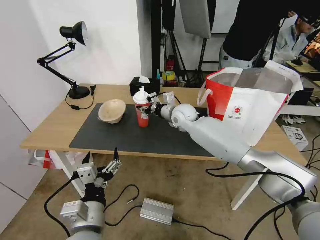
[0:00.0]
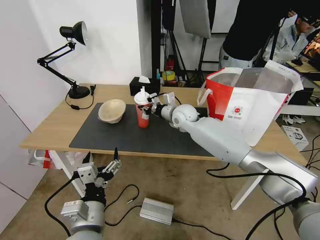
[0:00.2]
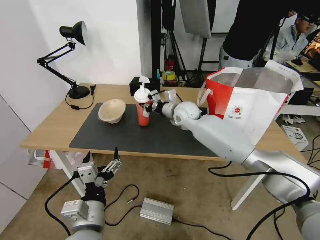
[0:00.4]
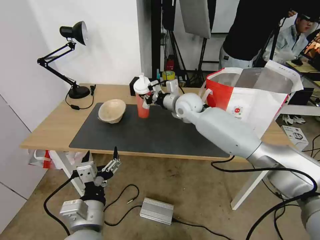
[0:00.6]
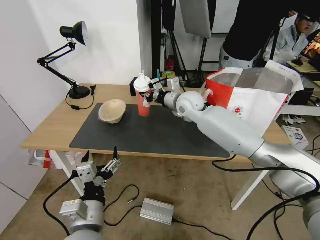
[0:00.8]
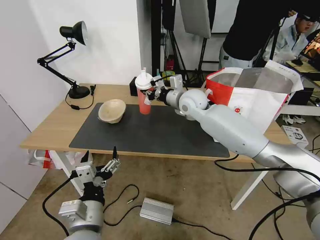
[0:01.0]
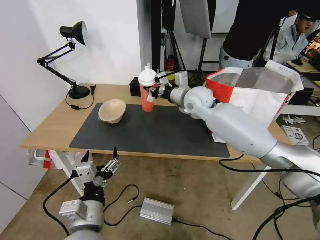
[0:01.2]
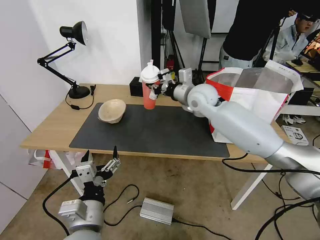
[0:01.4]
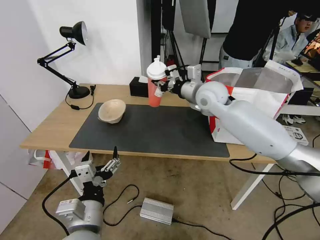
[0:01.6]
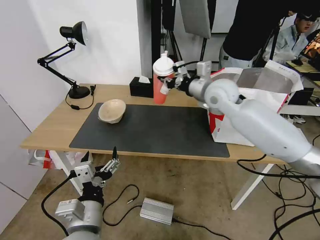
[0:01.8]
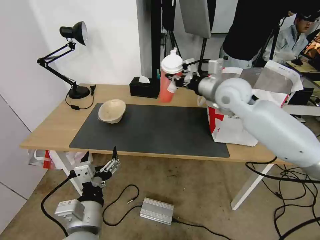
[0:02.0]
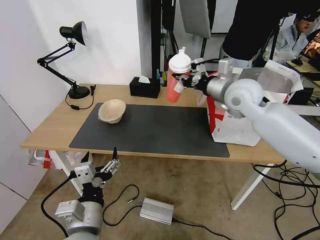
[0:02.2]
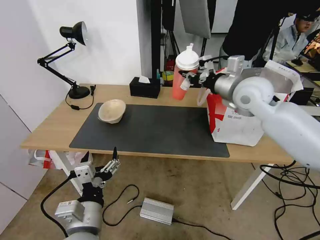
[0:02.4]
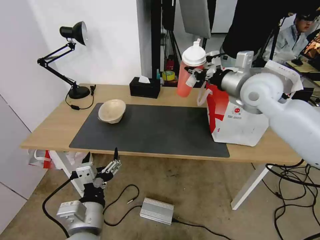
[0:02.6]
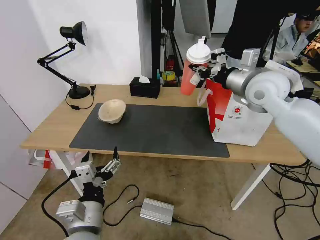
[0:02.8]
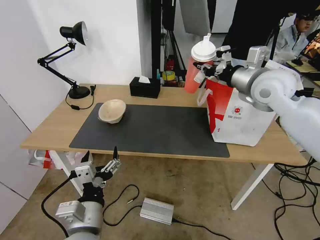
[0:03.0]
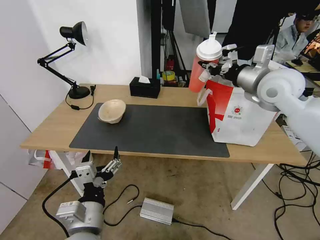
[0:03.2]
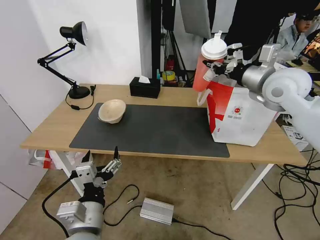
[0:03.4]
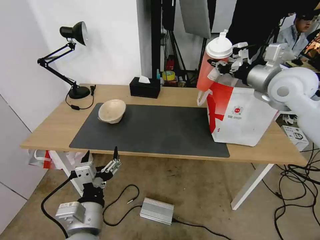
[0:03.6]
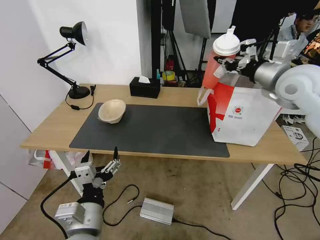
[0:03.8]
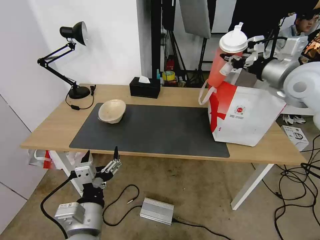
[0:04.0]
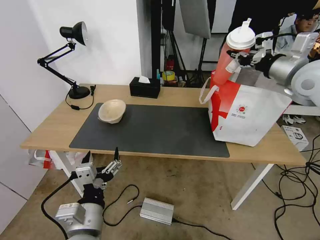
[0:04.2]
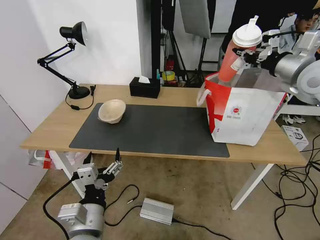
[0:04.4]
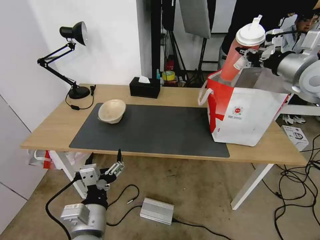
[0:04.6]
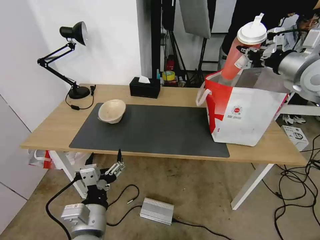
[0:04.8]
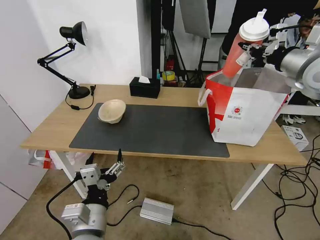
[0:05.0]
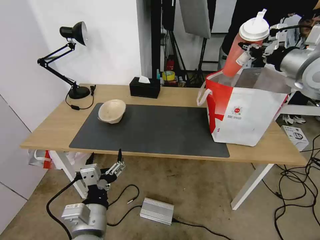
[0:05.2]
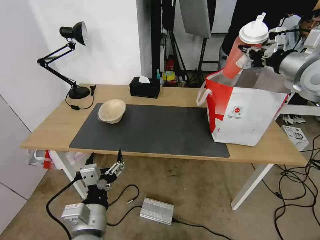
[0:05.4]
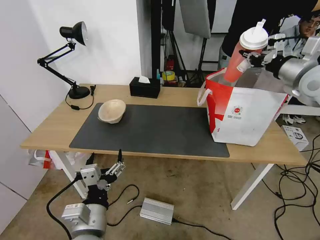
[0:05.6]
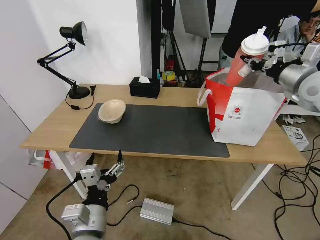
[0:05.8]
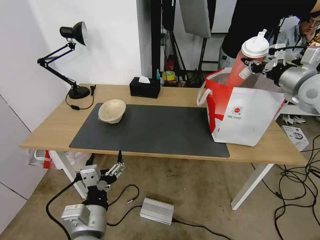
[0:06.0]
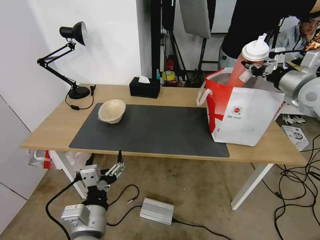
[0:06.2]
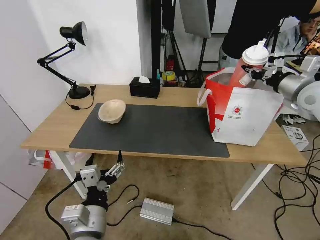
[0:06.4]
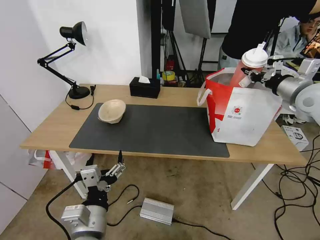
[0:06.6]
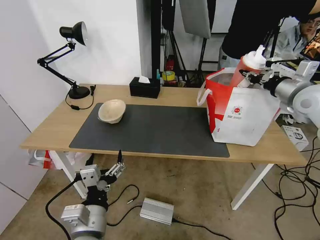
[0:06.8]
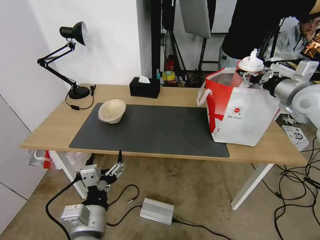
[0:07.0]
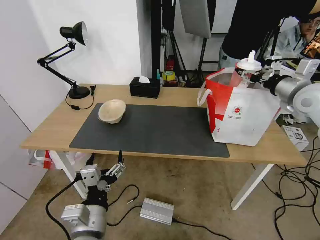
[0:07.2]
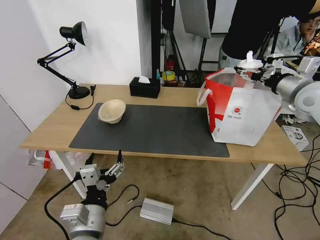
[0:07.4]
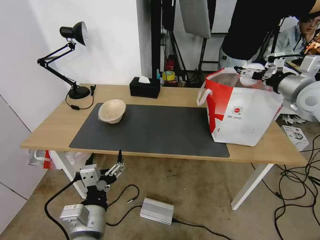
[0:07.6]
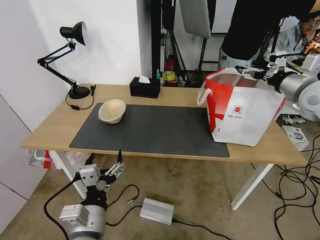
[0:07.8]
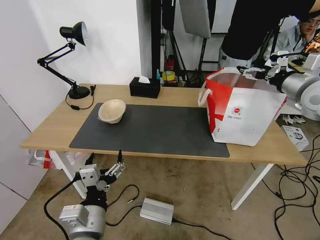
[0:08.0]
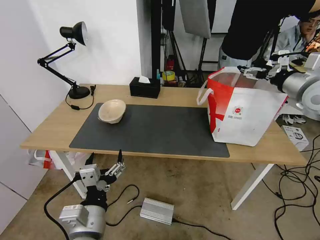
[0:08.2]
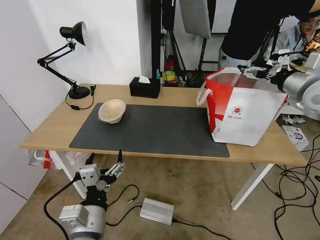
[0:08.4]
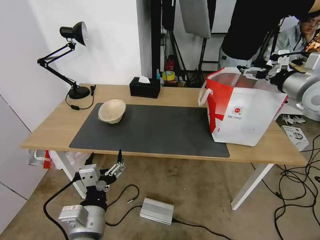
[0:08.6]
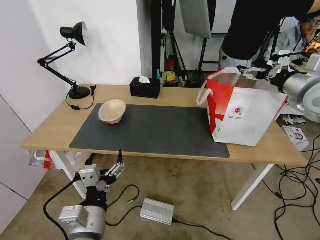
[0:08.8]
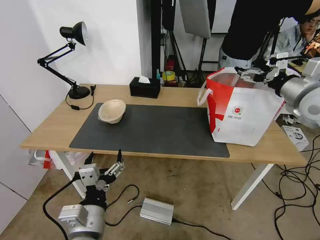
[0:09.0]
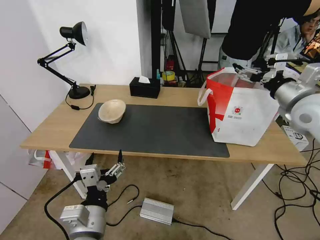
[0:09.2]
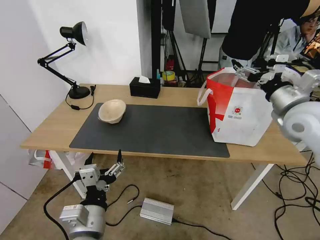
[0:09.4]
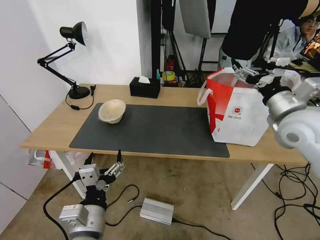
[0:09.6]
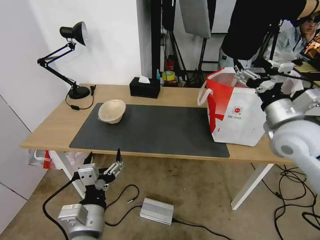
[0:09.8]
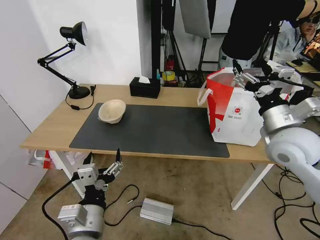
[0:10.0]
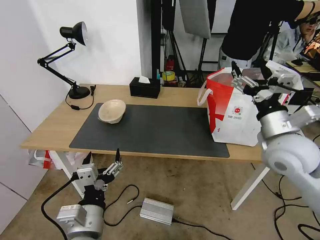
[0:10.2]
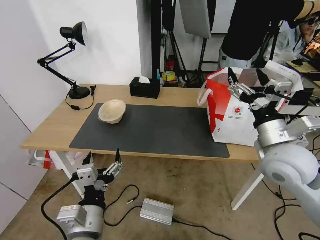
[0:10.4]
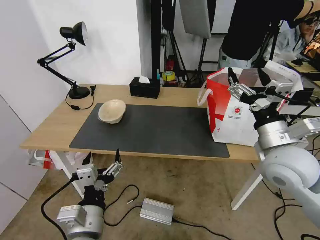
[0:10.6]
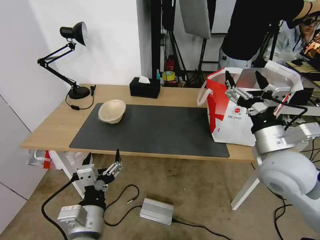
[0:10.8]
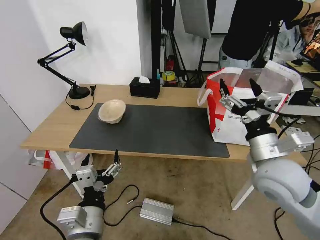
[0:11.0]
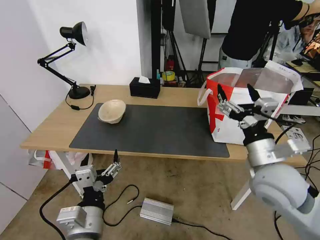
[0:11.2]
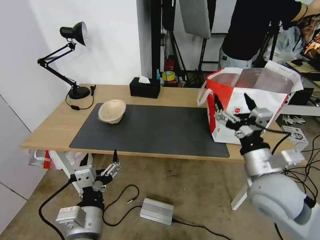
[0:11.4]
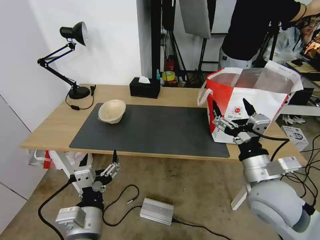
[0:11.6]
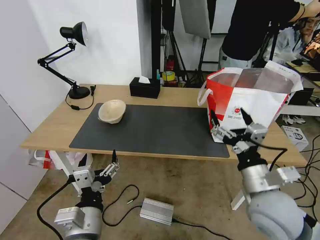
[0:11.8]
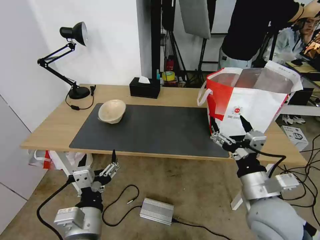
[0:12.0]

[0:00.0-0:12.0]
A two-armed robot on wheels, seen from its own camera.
Task of the whole recording: Pick up the trash from the table and place it into the takeout bag.
0:00.0 to 0:01.6: The right gripper heads upward and to the right, covering roughly 15 cm.
0:01.6 to 0:03.0: The right gripper goes roughly 15 cm to the right, upward and backward.
0:03.0 to 0:04.4: The right gripper heads to the right, covering roughly 10 cm.
0:04.4 to 0:06.0: There are only small adjustments of the grippers.
0:06.0 to 0:07.6: The right gripper opens up.
0:07.6 to 0:09.0: The grippers stay close to where they were, moving slightly.
0:09.0 to 0:10.4: The right gripper is displaced backward, to the left and downward by about 20 cm.
0:10.4 to 0:12.0: The right gripper is displaced backward and downward by approximately 15 cm.

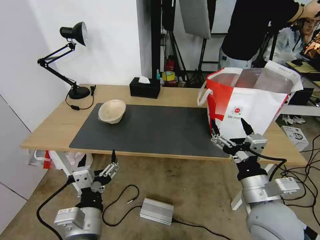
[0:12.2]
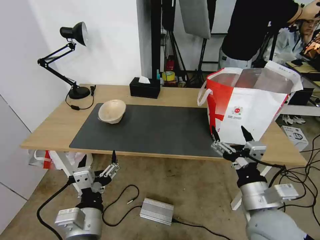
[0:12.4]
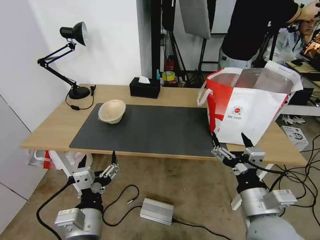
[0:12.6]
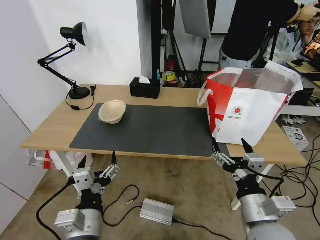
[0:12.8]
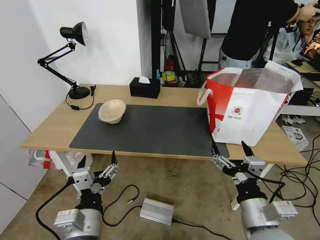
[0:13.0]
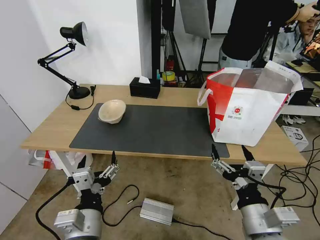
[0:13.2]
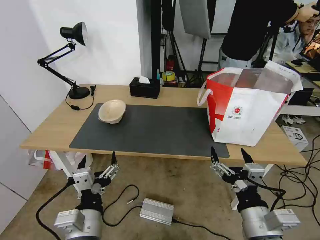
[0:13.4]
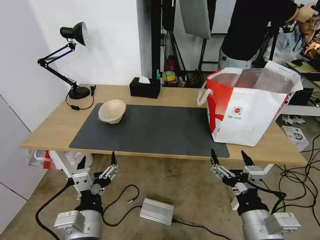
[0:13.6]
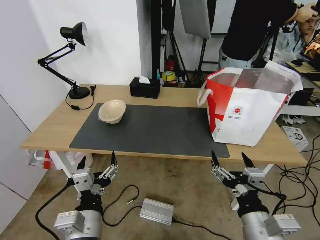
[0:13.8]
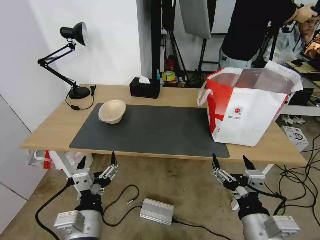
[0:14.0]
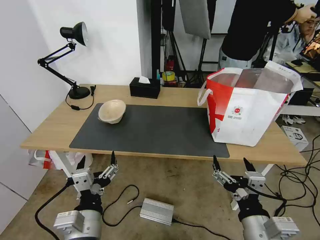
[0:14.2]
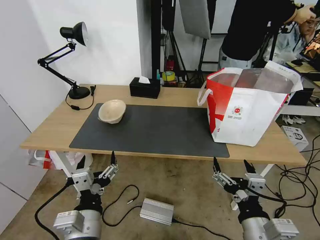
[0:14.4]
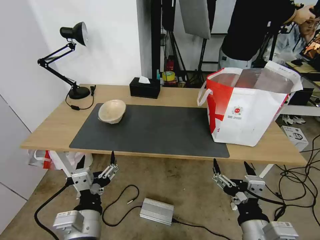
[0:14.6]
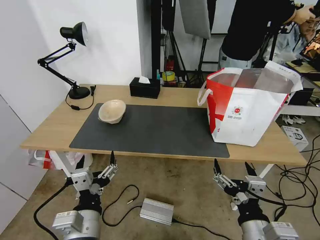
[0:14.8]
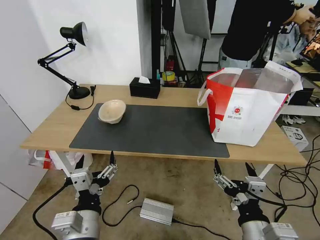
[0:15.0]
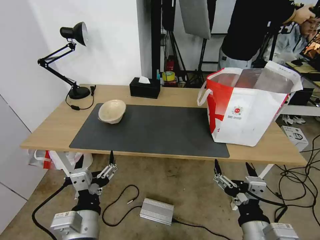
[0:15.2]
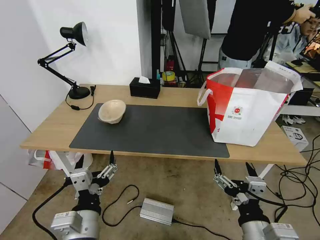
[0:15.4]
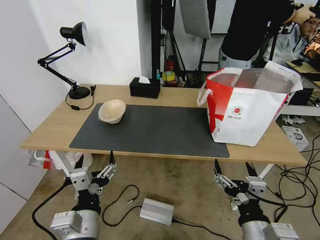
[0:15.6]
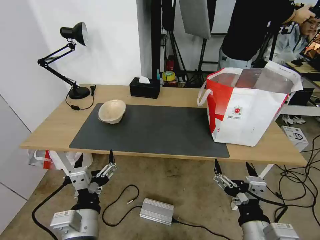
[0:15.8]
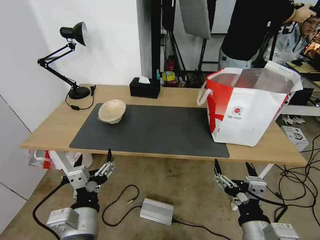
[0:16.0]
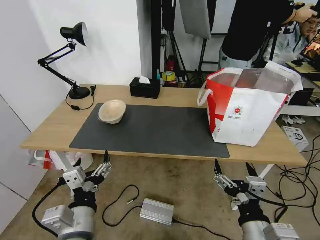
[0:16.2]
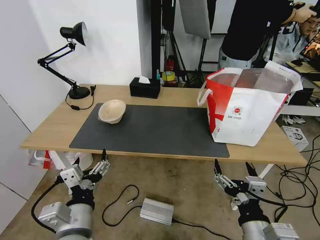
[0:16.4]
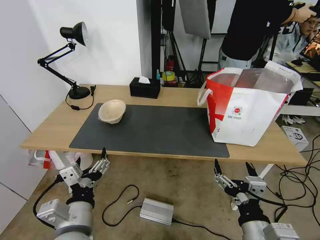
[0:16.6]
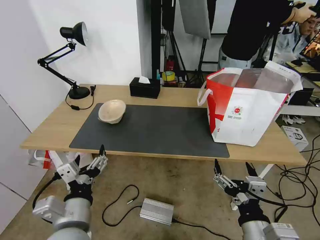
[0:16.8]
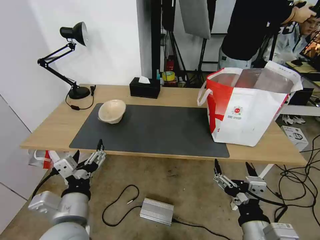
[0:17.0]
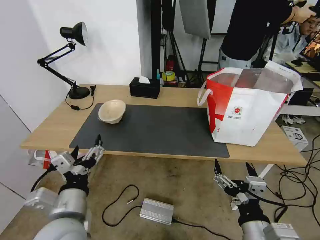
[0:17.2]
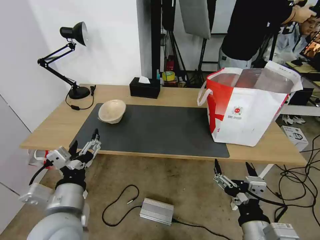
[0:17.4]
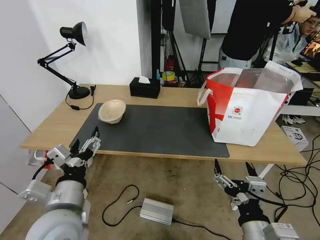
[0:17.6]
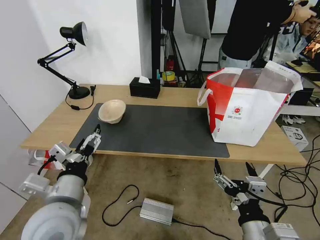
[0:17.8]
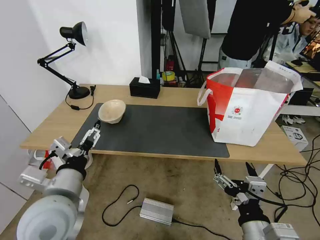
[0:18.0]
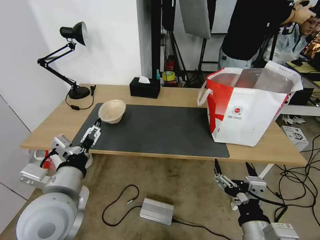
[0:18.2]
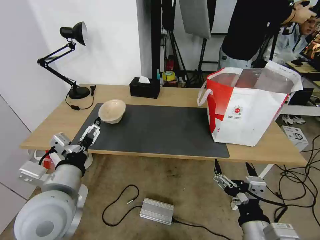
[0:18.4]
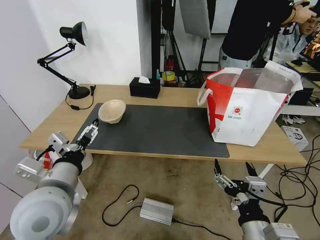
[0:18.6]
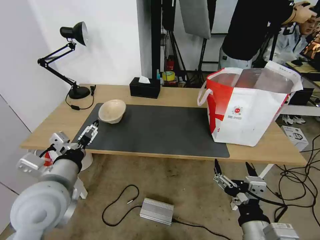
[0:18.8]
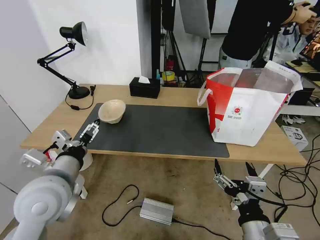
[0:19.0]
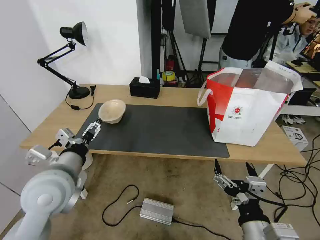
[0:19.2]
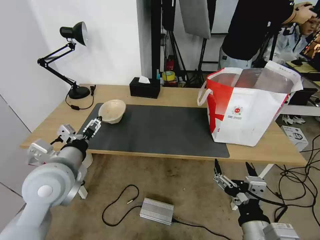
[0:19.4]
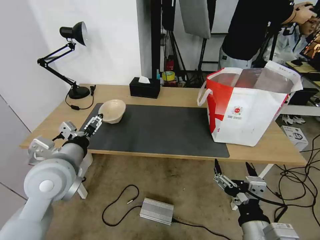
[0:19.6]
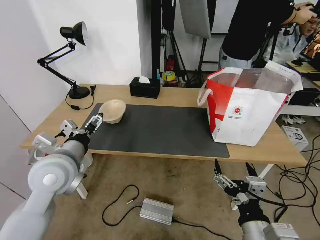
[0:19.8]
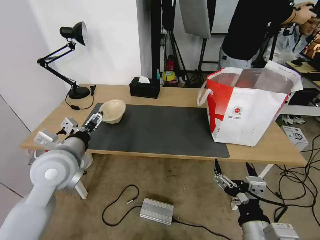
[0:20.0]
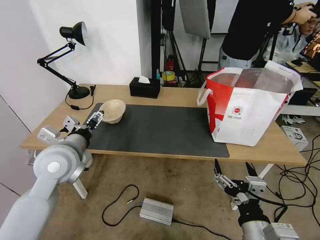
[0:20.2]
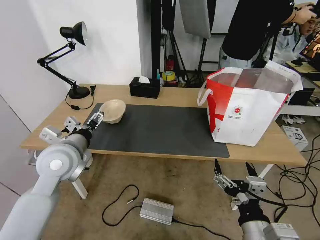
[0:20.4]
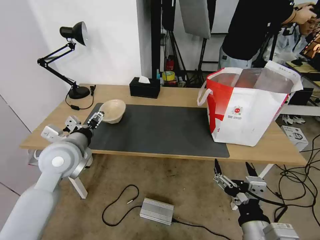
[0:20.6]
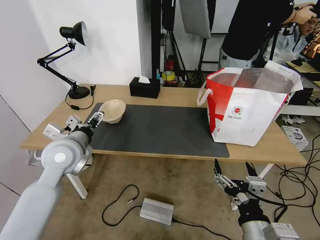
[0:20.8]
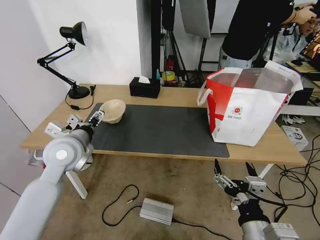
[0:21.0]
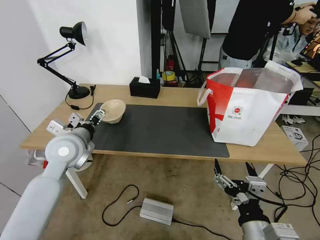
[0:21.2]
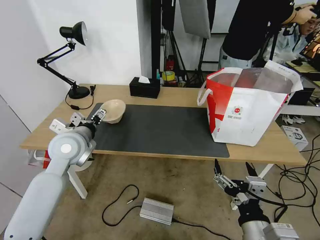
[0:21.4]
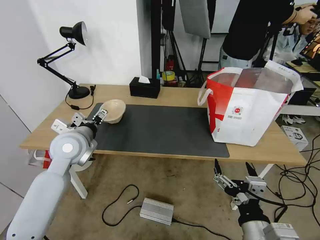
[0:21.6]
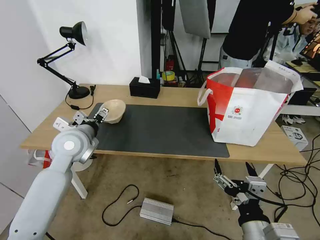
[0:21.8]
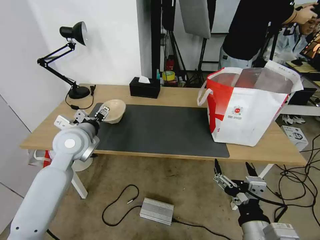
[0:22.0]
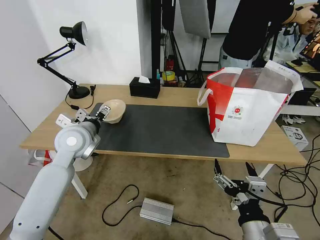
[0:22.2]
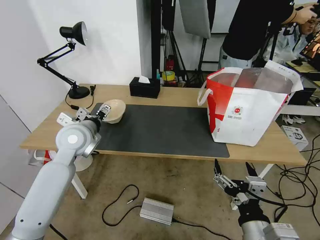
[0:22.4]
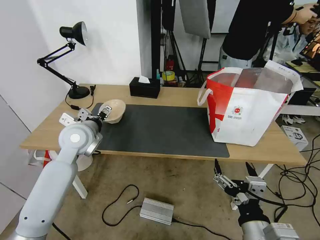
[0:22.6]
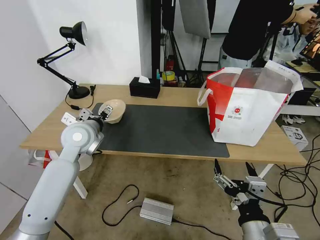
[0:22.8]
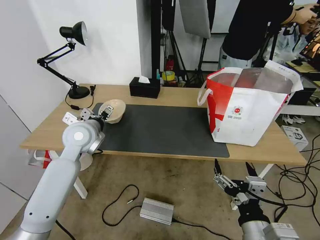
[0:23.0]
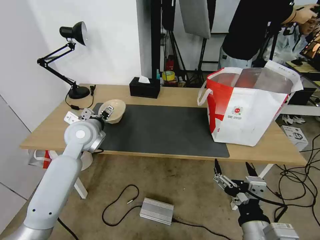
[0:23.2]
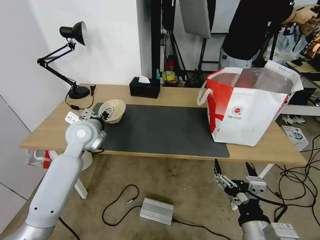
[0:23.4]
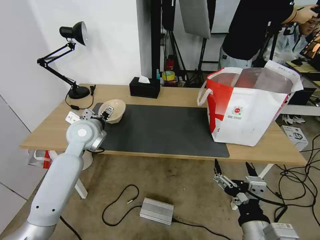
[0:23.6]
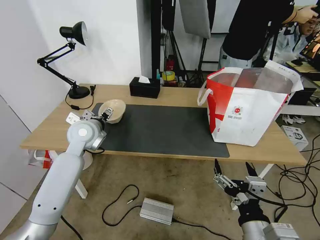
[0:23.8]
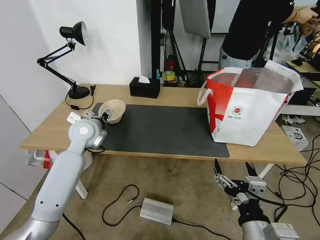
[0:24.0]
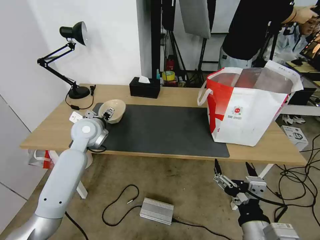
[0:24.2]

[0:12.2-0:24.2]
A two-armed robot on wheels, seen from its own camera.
Task of the whole recording: Pick up the trash from the table and place it into the takeout bag.
0:12.2 to 0:13.8: The right gripper goes some 10 cm backward.
0:13.8 to 0:16.6: The grippers make only small movements.
0:16.6 to 0:18.2: The left gripper travels upward and forward by about 10 cm.
0:18.2 to 0:19.8: The left gripper heads forward, covering about 10 cm.
0:19.8 to 0:21.2: The left gripper goes roughly 5 cm forward.
0:21.2 to 0:22.6: The grippers move only a little.
0:22.6 to 0:24.2: The left gripper shifts roughly 5 cm forward.
